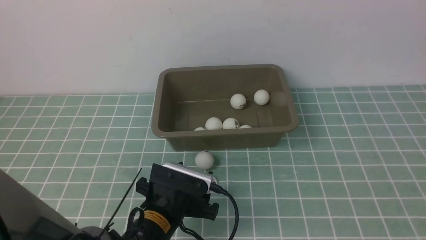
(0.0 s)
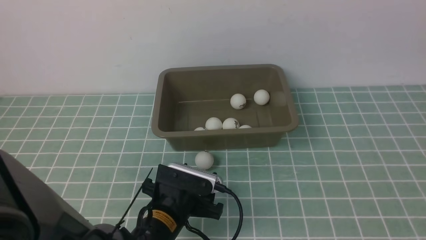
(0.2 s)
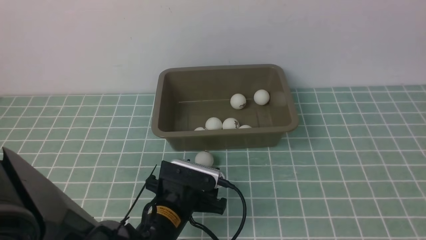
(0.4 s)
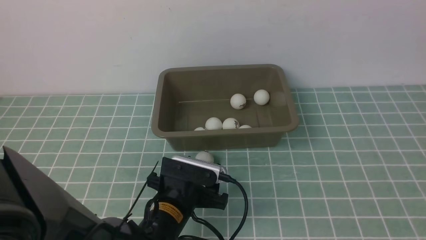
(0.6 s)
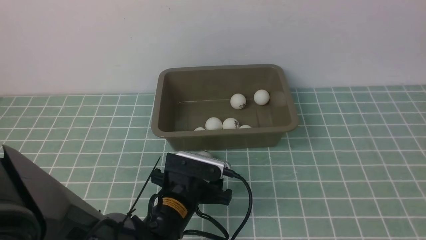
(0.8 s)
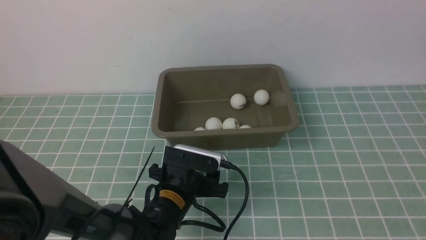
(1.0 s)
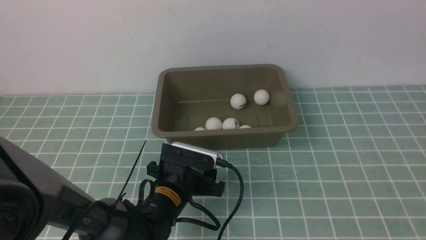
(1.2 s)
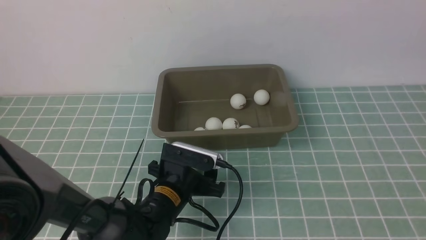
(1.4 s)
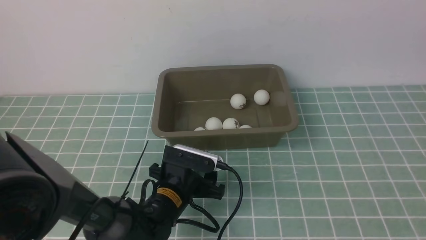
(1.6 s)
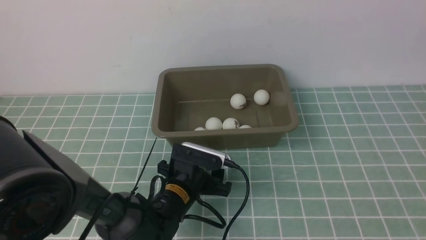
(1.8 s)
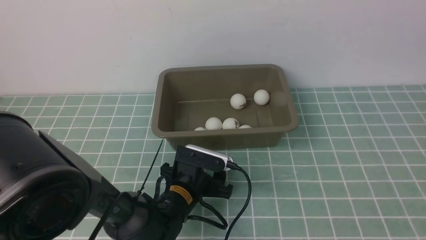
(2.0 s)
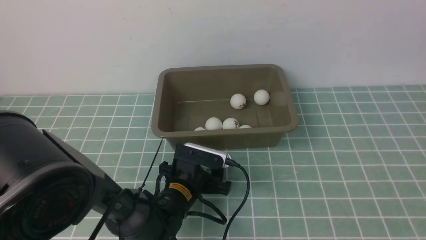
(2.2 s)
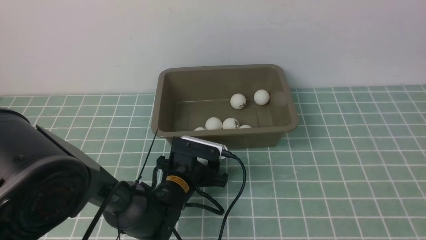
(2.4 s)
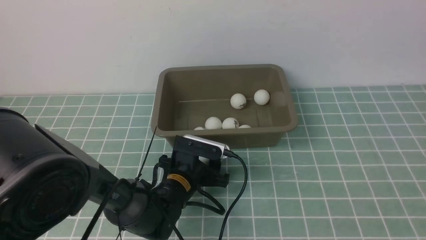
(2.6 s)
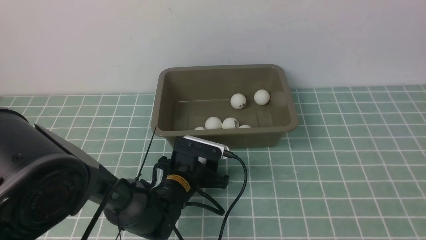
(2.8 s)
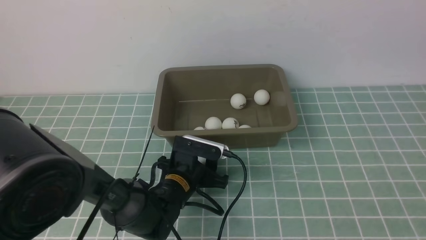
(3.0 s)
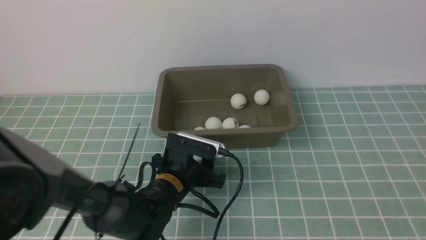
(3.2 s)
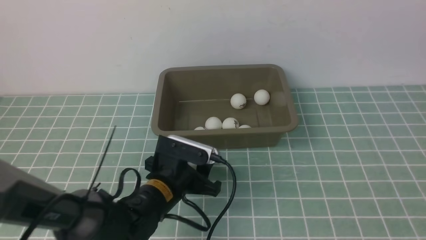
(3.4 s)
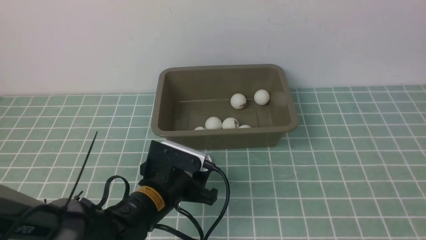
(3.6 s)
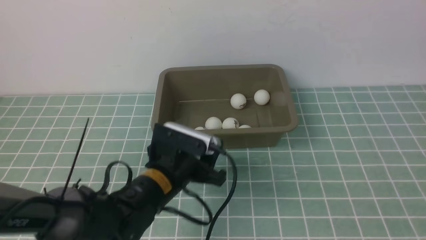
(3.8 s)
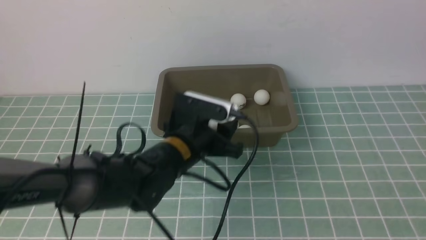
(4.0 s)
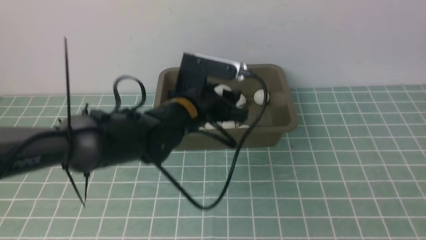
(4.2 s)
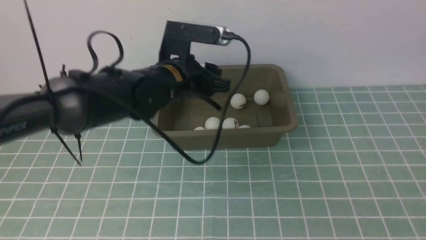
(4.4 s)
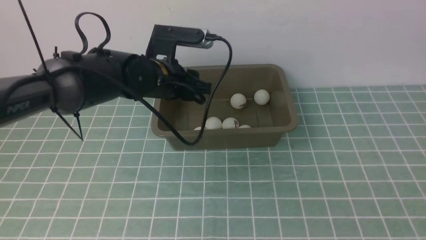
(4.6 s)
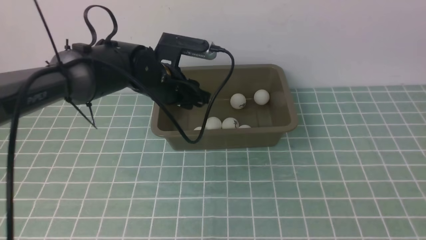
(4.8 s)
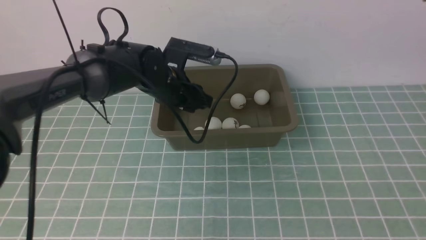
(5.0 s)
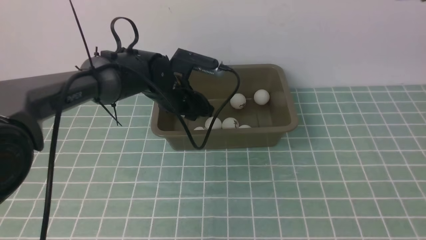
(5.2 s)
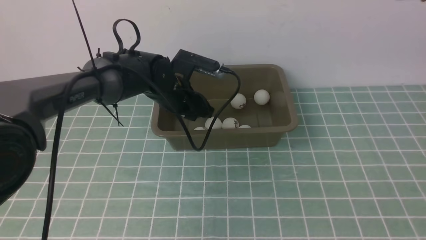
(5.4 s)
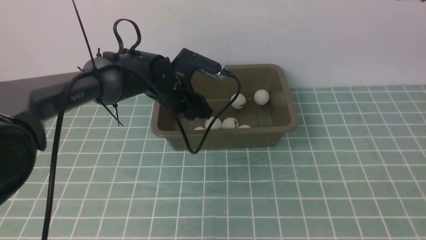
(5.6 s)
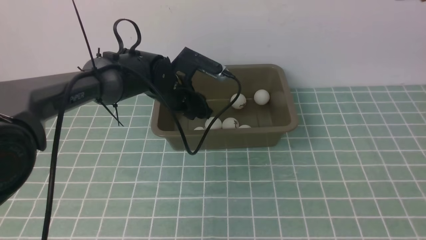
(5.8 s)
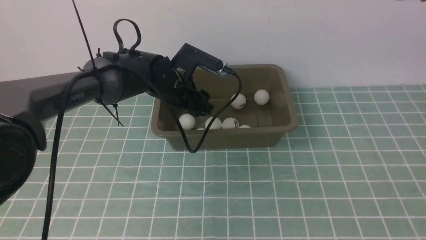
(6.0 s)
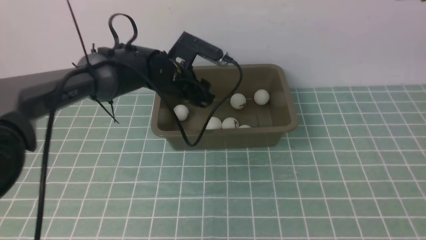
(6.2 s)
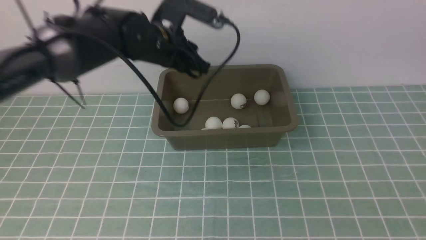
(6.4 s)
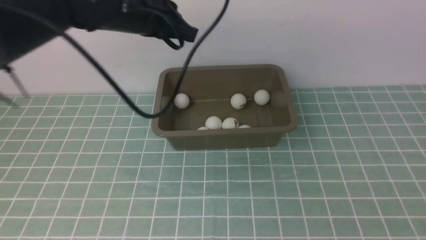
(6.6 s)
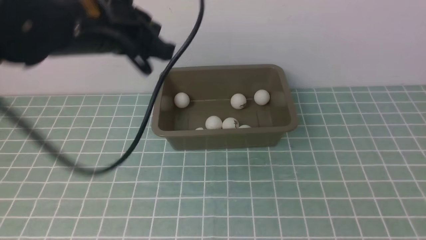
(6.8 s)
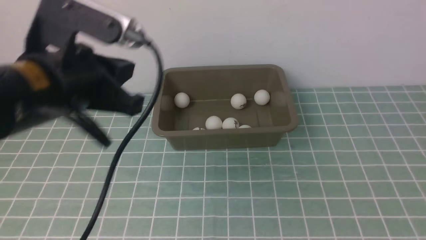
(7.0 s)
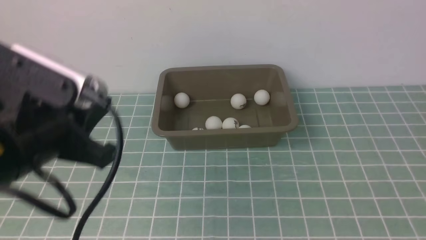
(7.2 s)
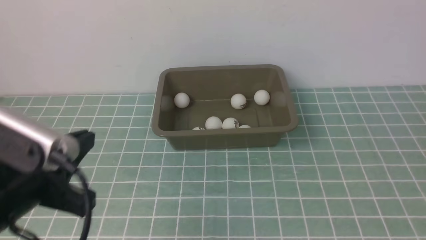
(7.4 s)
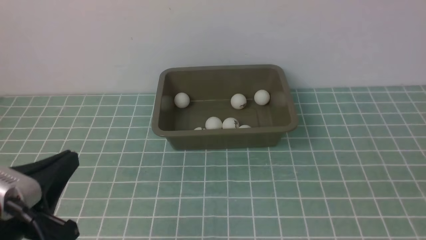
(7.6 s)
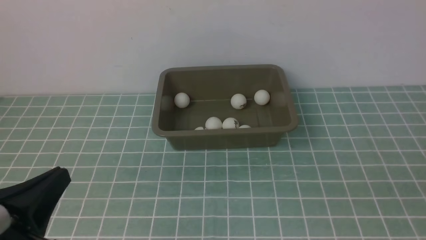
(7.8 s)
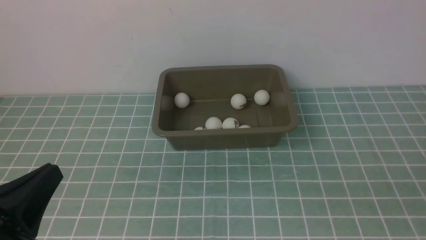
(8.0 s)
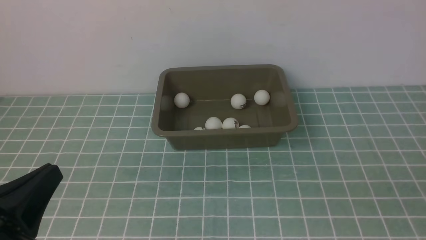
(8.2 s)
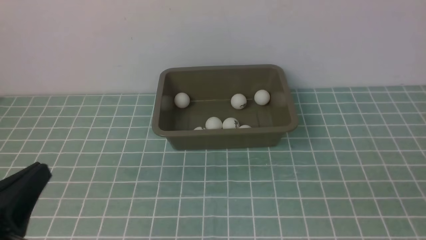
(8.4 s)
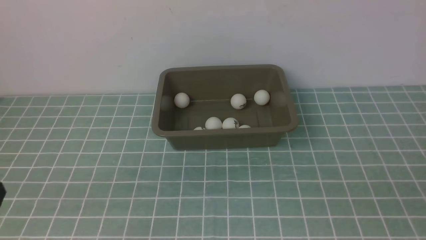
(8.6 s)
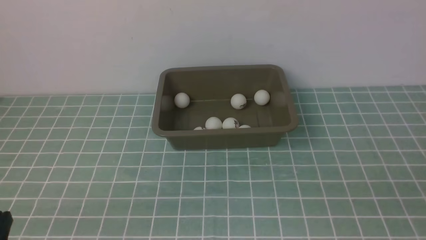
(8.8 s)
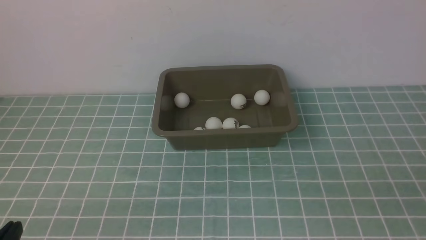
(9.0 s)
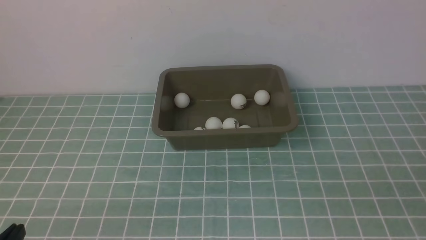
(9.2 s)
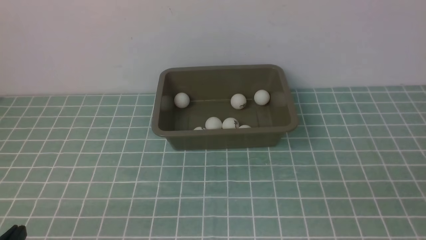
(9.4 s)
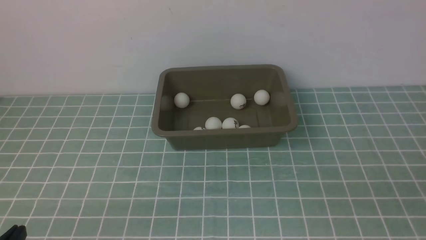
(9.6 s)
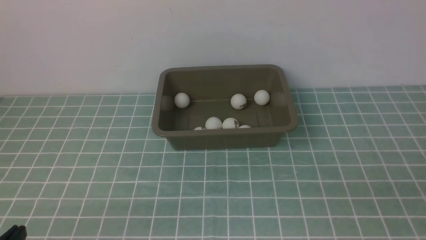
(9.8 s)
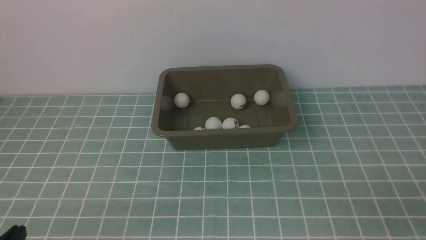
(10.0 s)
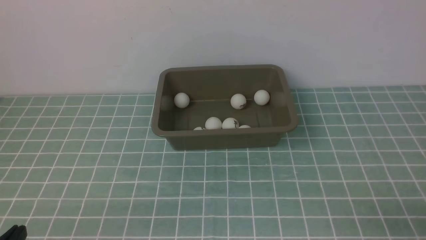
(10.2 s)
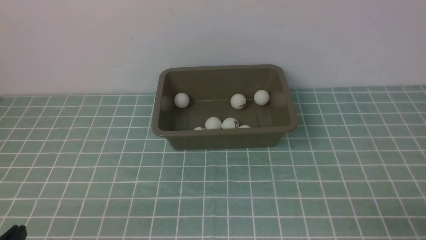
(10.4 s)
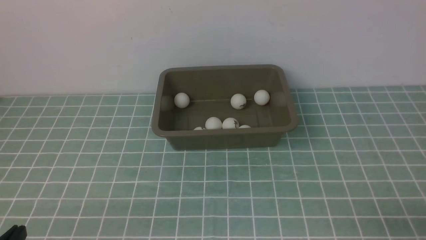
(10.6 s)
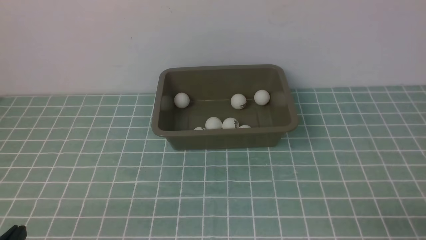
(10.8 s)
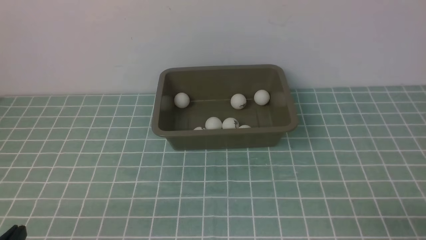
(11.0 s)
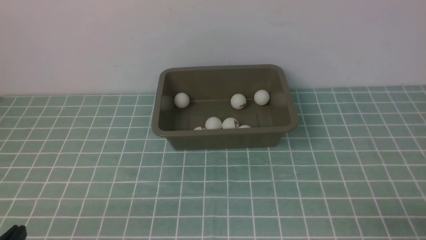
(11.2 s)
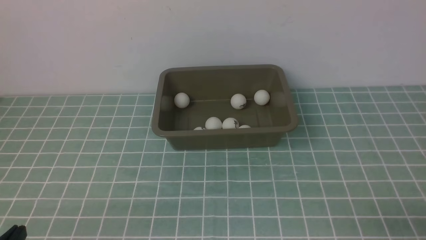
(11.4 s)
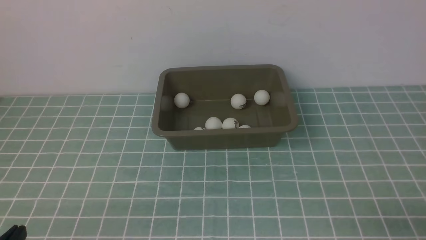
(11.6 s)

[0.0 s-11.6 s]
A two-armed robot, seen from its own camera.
Step, 0.0 to 3.2 s: use the left arm to clamp the table tennis ball closest to it.
Step, 3.6 to 6.2 s: use the left arm to put the table tennis ball into the box.
0.0 to 1.4 s: The left gripper ends up approximately 5 cm from where it was.
1.4 to 2.8 s: The left gripper heads upward, covering approximately 5 cm.
2.8 to 4.4 s: The left gripper is displaced forward by approximately 15 cm.
4.4 to 5.8 s: The left gripper is displaced upward by about 10 cm.
5.8 to 7.2 s: The right gripper moves downward and backward, roughly 25 cm, and closes up. Meanwhile the left gripper goes roughly 35 cm backward and to the left, and closes.
7.2 to 8.8 s: The left gripper goes roughly 10 cm downward.
10.2 to 11.6 s: Both grippers stay put.

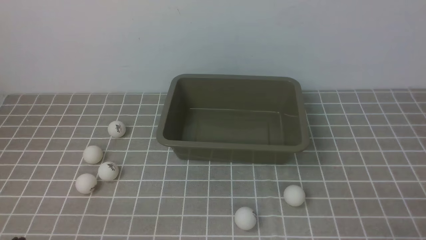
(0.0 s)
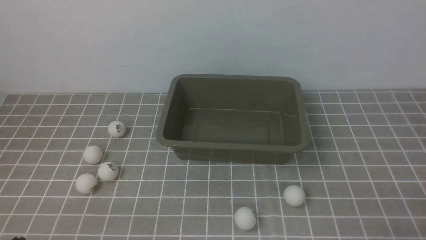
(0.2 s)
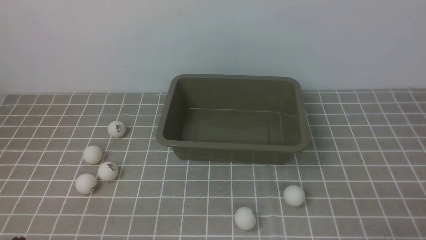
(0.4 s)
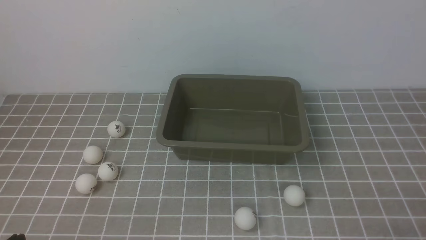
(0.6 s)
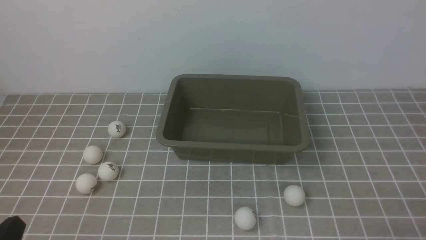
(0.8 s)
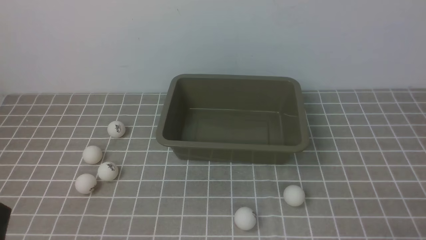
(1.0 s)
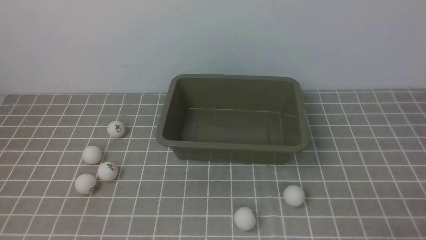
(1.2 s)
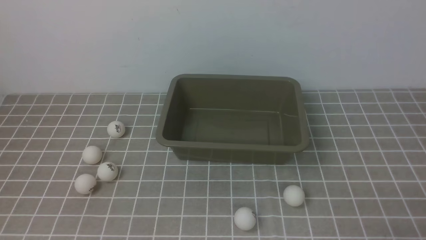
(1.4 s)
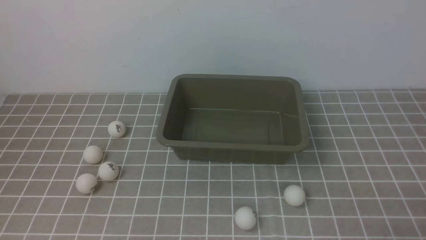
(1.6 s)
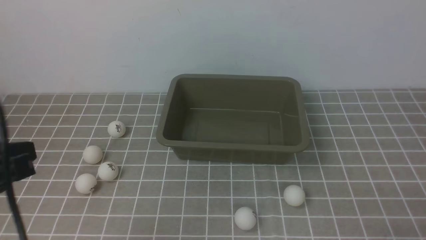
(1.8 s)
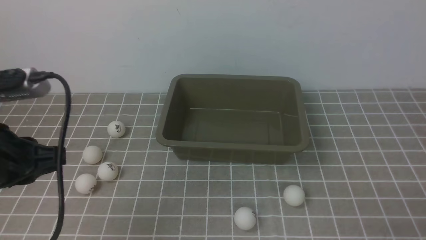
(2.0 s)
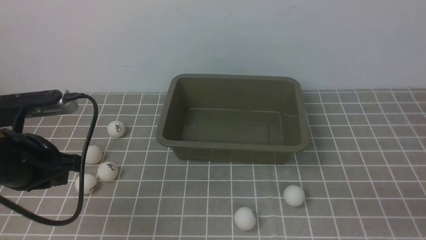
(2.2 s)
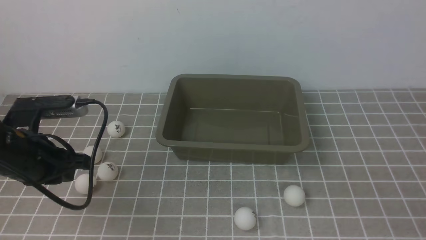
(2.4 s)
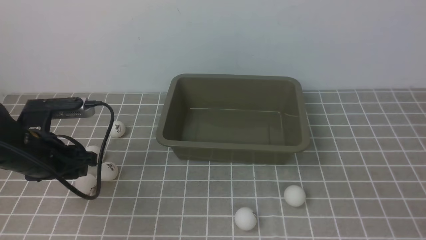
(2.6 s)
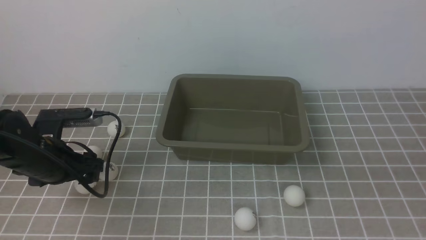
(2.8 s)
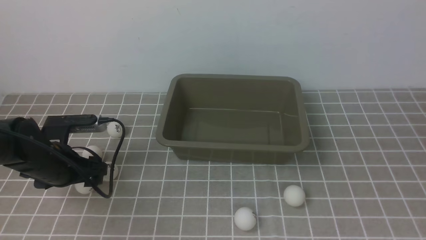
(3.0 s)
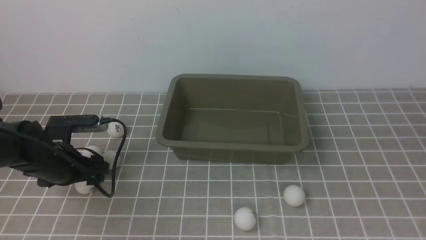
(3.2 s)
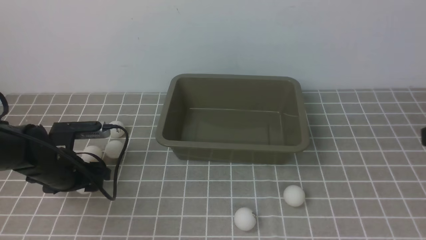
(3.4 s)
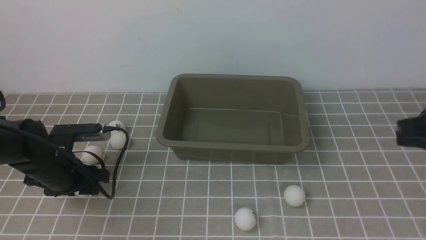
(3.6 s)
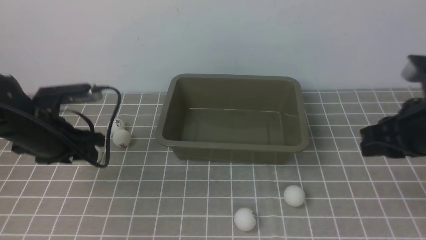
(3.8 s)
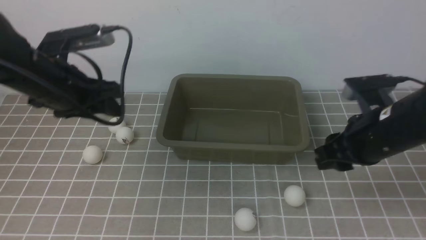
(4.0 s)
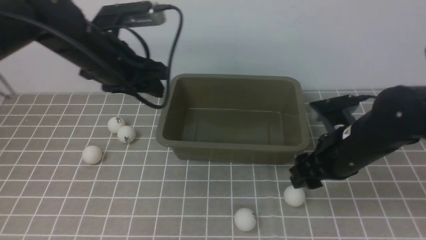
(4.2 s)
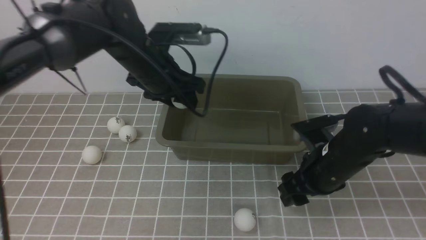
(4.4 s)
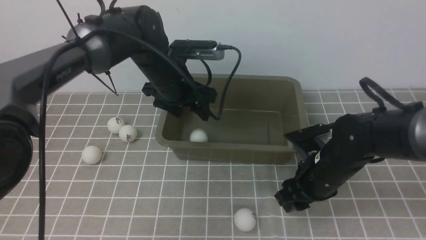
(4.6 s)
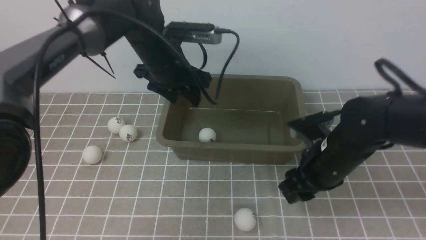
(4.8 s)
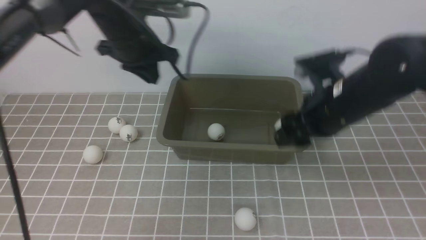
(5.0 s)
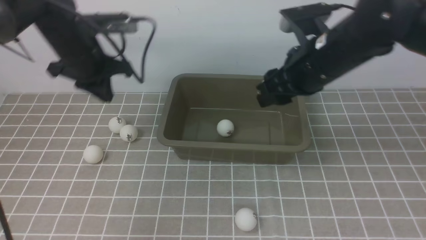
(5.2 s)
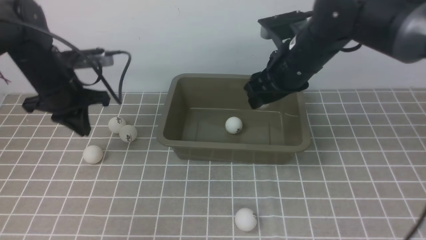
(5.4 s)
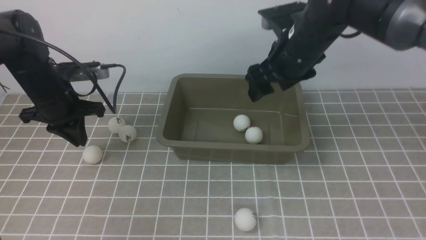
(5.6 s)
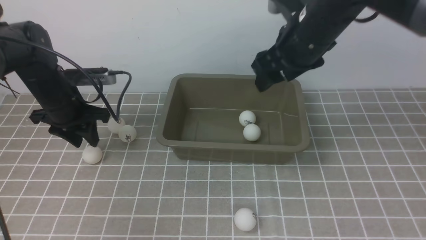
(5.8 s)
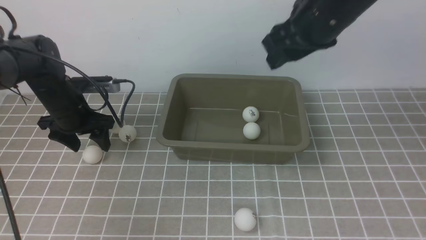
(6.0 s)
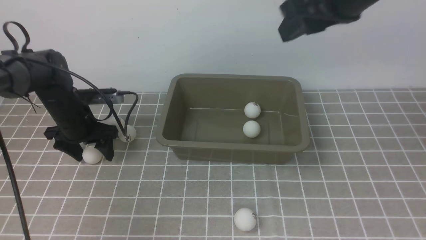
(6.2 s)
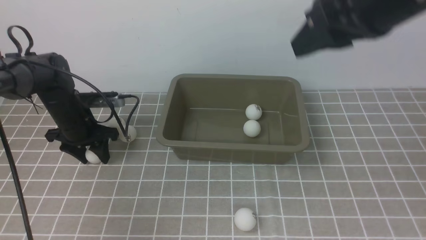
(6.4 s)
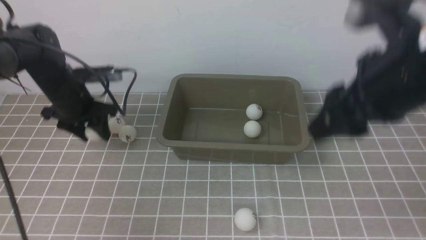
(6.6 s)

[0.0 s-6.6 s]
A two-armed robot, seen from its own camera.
Step, 0.0 to 3.8 s: use the left arm to clamp the table tennis ball closest to it.
Step, 4.0 to 4.4 s: use the left arm to put the table tennis ball into the box.
Step, 5.0 to 5.4 s: use the right arm to put the table tennis ball into the box.
Step, 5.6 to 6.6 s: use the left arm to clamp the table tennis ball closest to it.
1.6 to 3.2 s: The right gripper moves upward, approximately 20 cm. Meanwhile the left gripper moves forward and downward, roughly 30 cm, and opens its fingers.
3.2 to 5.0 s: The left gripper heads upward, forward and to the right, covering some 20 cm, and closes its fingers; the right gripper travels forward, to the left and downward by about 25 cm, and opens its fingers.
5.0 to 6.6 s: The right gripper is displaced upward and backward by about 10 cm; the left gripper heads downward and to the left, covering approximately 10 cm, and opens.
